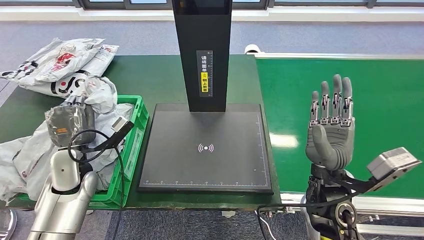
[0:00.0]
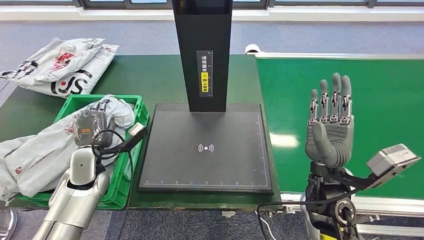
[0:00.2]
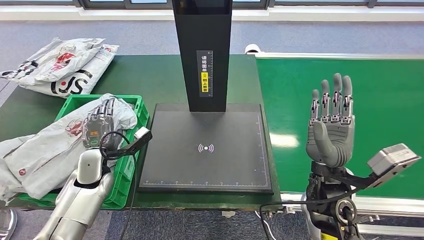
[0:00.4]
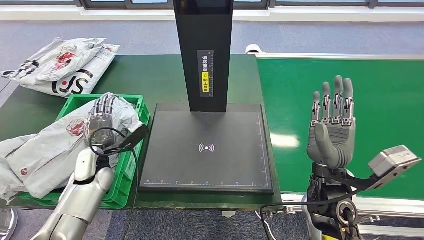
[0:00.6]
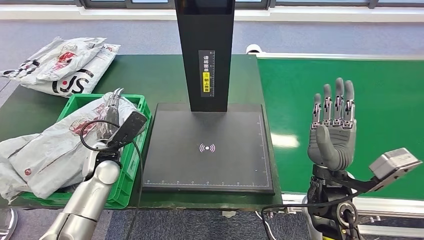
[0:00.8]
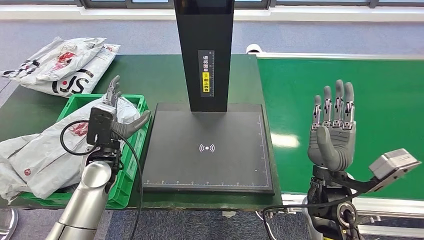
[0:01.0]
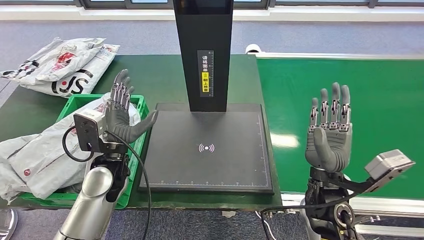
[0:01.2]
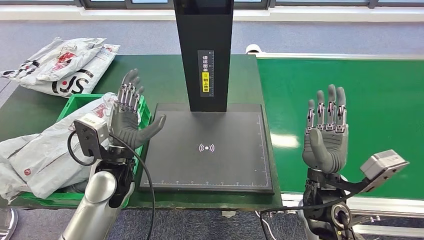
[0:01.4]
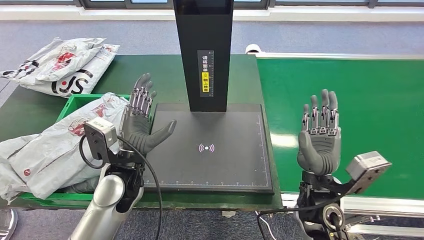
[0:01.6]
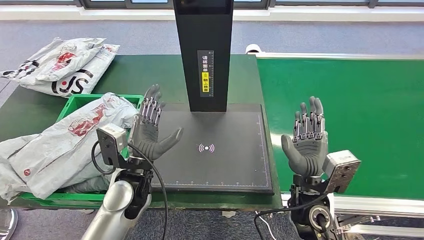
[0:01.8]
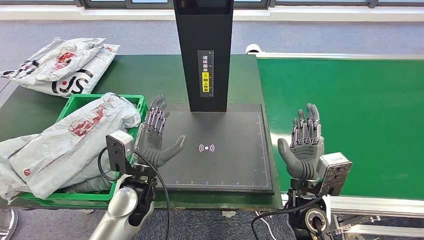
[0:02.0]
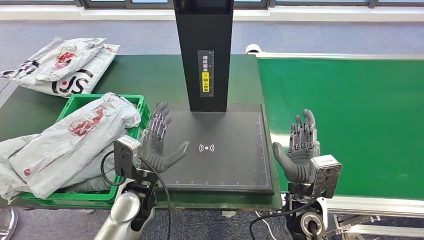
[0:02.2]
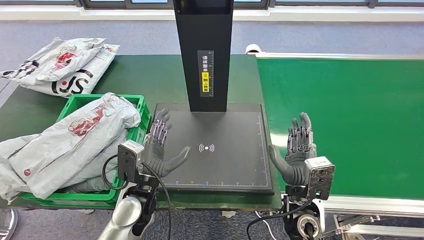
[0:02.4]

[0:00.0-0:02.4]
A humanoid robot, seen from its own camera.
Step, 0:00.0 to 0:02.4: Place the parcel into the delivery box.
0:00.0 to 0:01.2: The left hand moves to the right, about 10 cm.
0:01.2 to 0:02.4: The right hand moves downward, approximately 5 cm; the left hand heads to the right, downward and backward, covering some 10 cm.

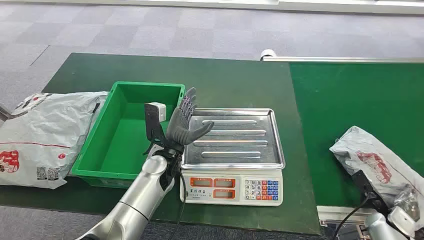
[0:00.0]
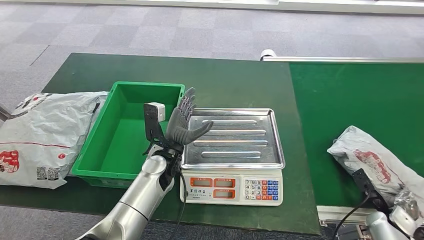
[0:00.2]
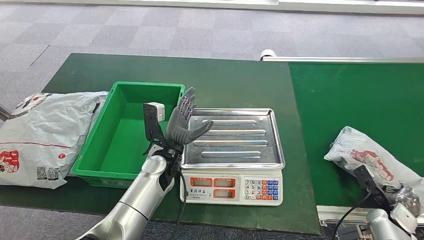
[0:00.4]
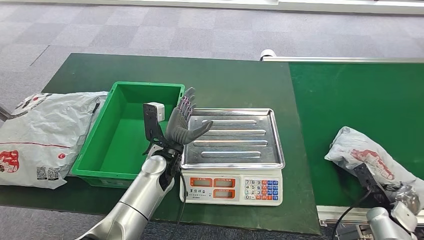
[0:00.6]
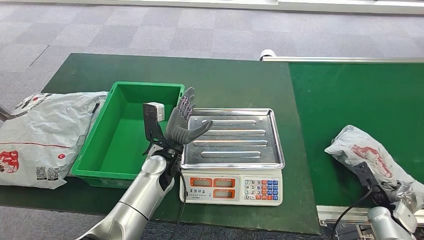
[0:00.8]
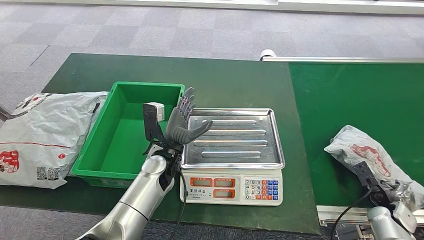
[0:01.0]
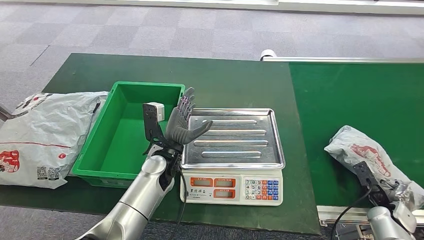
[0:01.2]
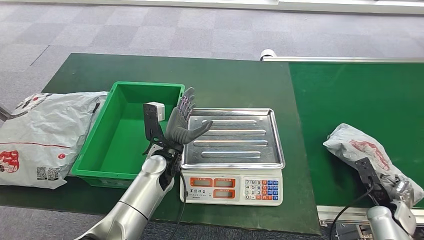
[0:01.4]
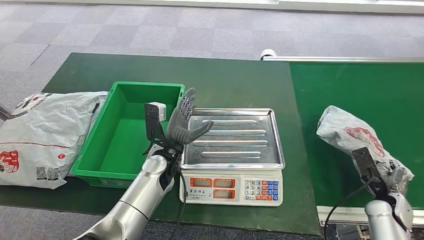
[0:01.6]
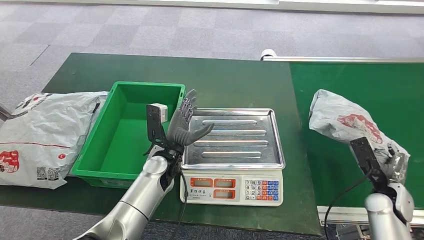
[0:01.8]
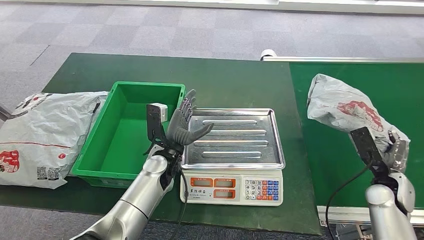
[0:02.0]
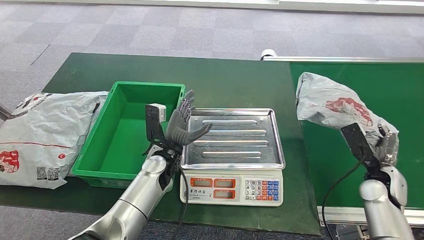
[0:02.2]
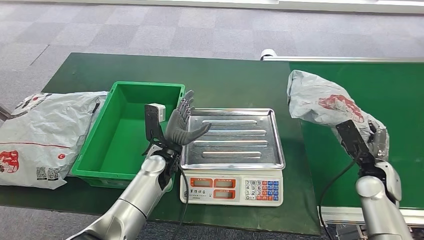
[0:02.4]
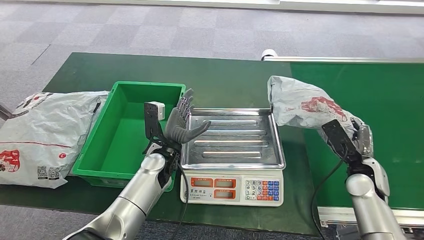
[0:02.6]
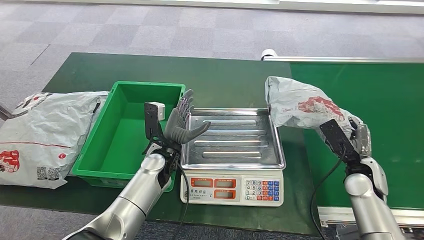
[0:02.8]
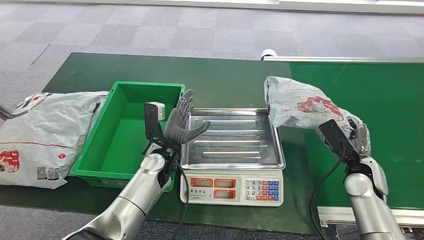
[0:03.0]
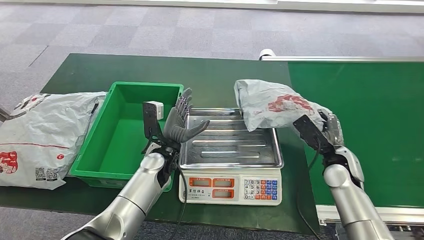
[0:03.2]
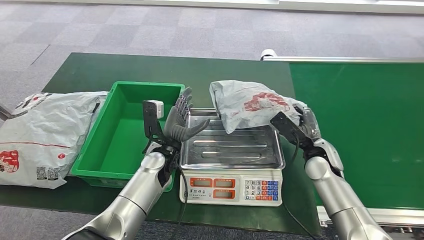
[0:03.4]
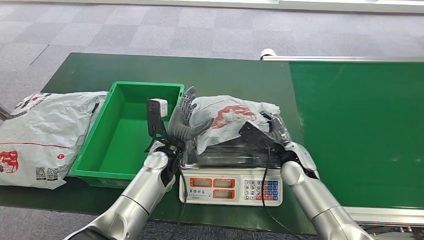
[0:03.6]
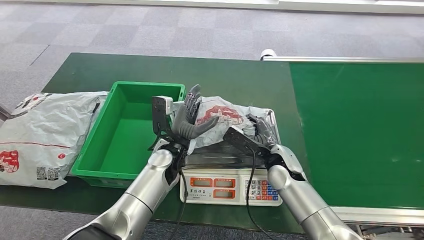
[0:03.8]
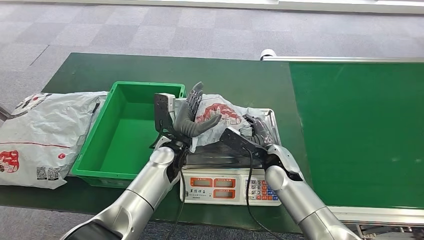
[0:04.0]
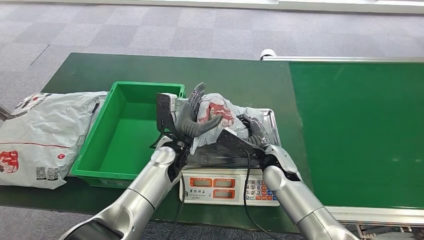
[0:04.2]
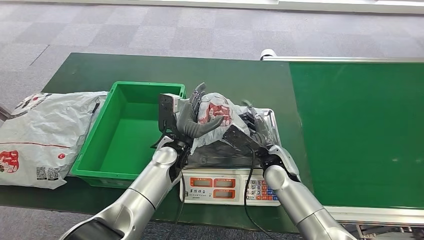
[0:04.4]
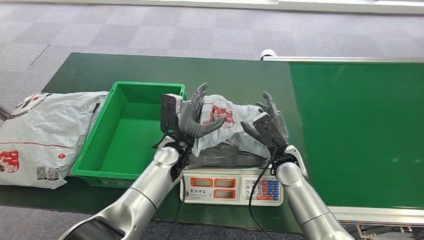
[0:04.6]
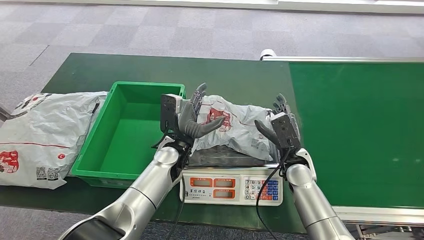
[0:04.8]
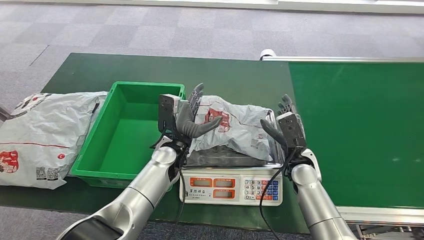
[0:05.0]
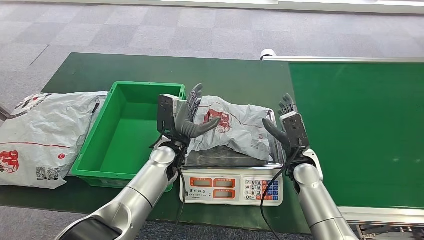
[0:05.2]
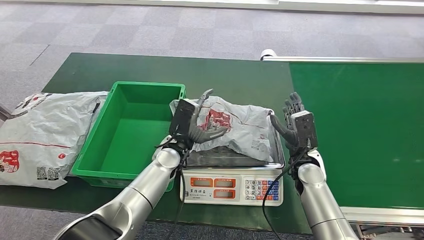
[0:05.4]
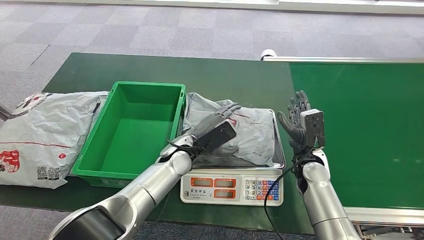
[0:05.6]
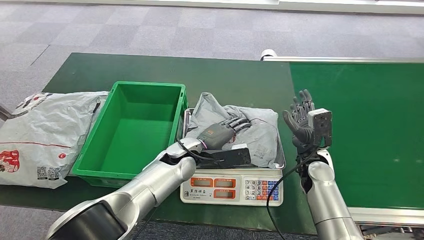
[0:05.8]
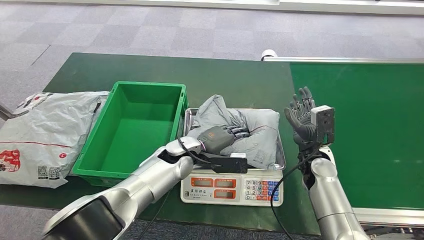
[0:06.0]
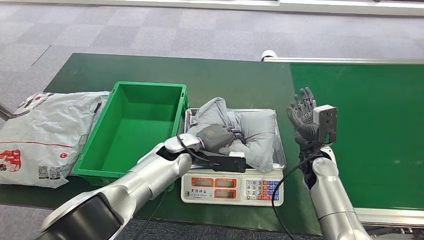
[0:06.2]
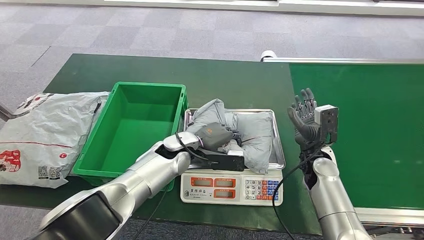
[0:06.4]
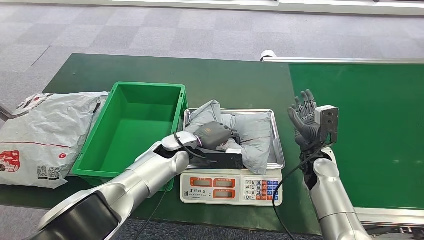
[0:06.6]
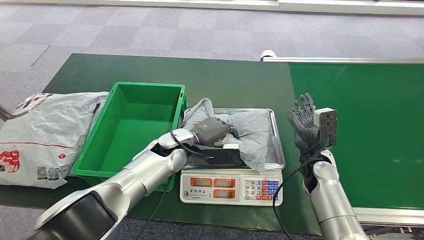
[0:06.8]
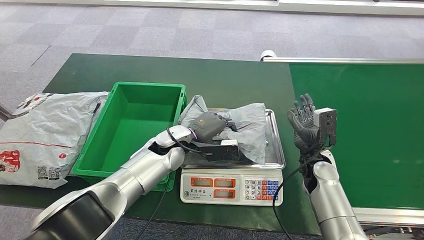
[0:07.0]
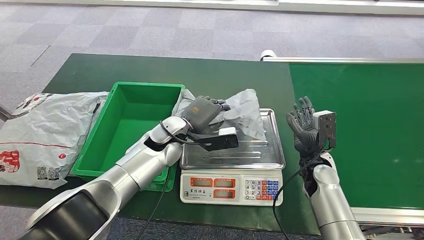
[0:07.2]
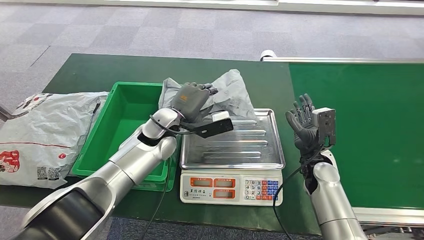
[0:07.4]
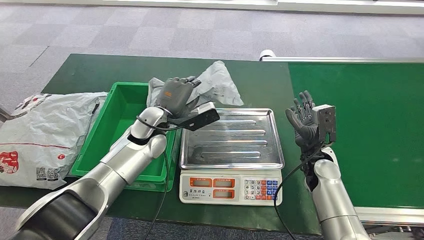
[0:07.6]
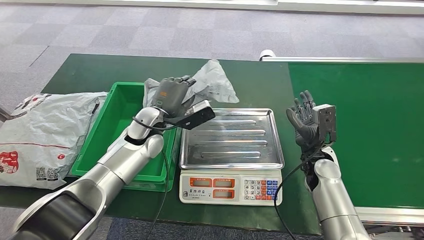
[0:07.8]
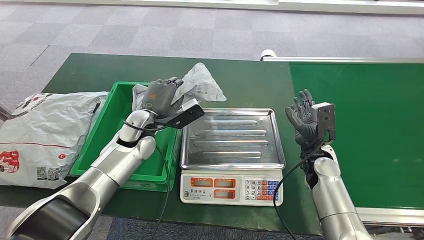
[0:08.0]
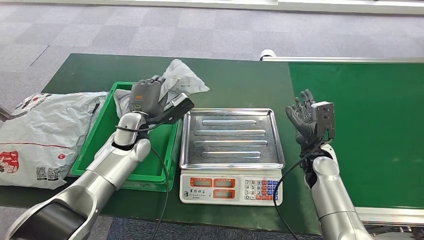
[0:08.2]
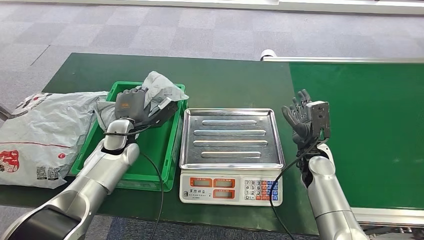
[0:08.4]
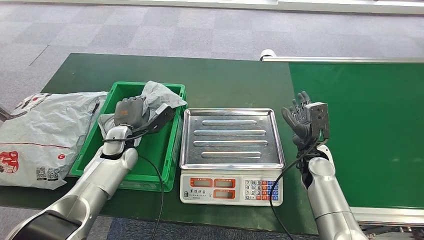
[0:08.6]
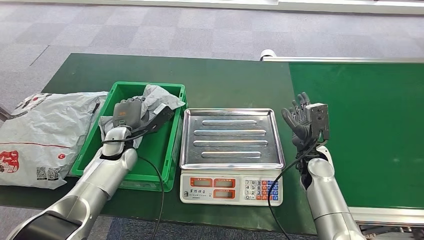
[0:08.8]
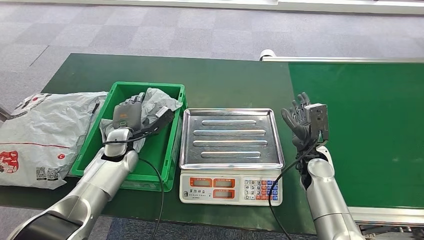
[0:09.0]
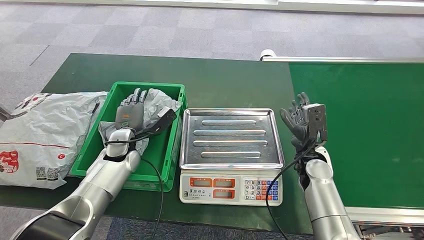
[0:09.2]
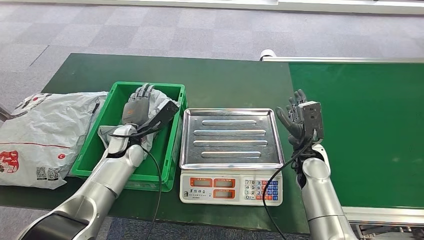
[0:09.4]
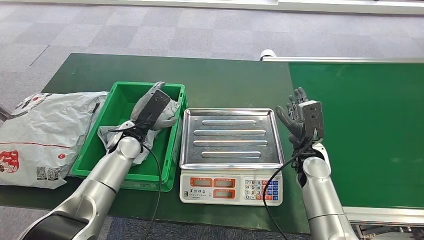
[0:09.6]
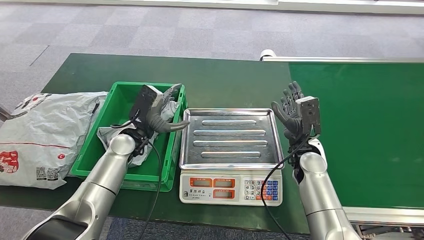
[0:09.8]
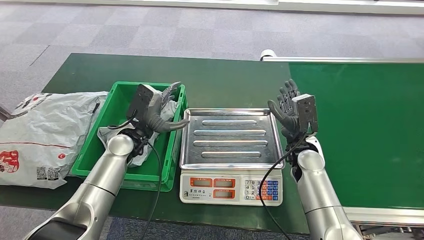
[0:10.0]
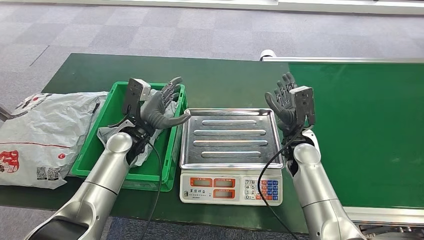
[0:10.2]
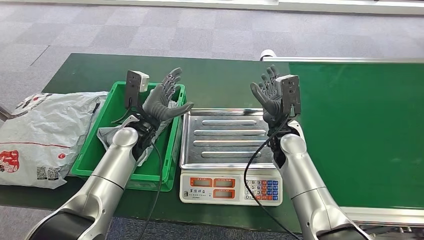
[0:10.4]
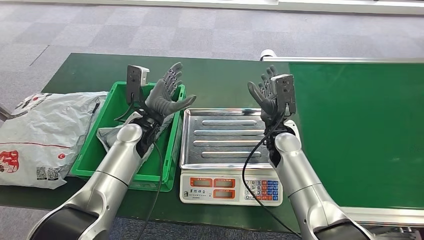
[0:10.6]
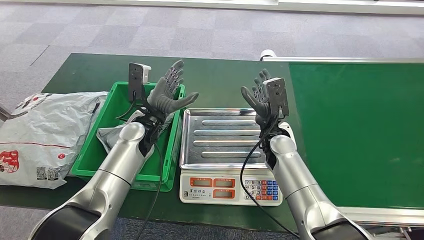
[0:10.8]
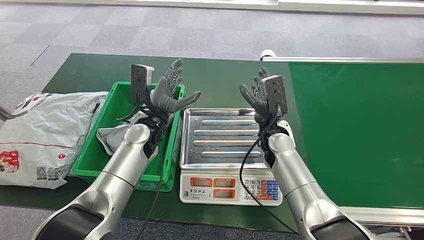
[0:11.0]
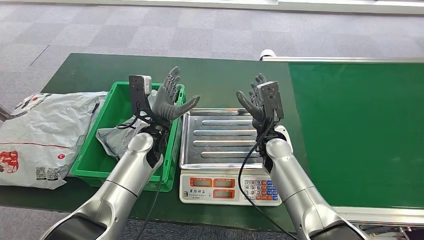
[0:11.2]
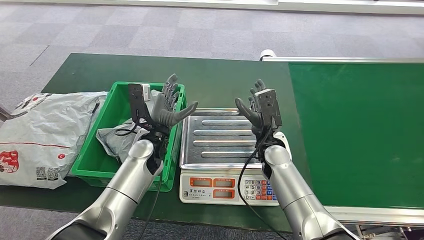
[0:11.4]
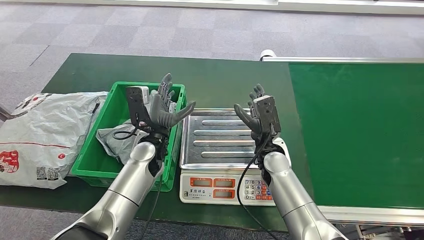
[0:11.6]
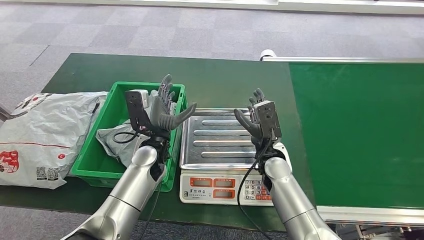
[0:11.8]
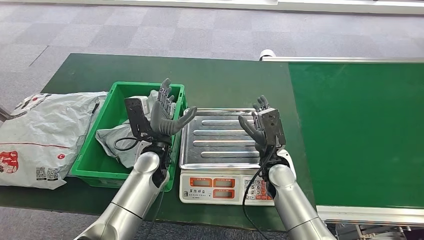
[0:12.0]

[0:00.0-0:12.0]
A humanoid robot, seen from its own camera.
Step, 0:00.0 to 0:02.2: Take the parcel off the conveyor belt.
Step, 0:02.4 to 0:05.6: Place the parcel onto the inbound machine.
Step, 0:05.8 to 0:08.4: Pick up the parcel from the inbound machine.
Step, 0:08.6 to 0:10.4: Put the parcel inside the courier box.
0:01.6 to 0:03.0: The right hand shifts roughly 15 cm to the left, upward and forward.
0:07.6 to 0:09.0: The left hand travels to the left and downward by some 10 cm.
0:09.0 to 0:10.4: The left hand heads to the right and upward, covering about 10 cm, while the right hand shifts some 10 cm to the left and upward.
0:10.4 to 0:12.0: The right hand travels backward and downward by roughly 10 cm. The left hand is displaced to the right and backward by some 10 cm.

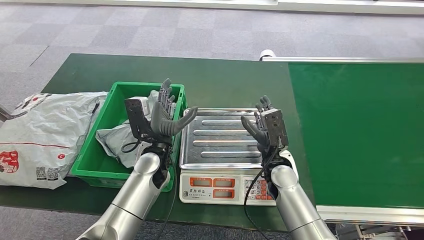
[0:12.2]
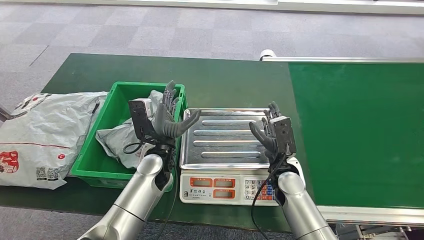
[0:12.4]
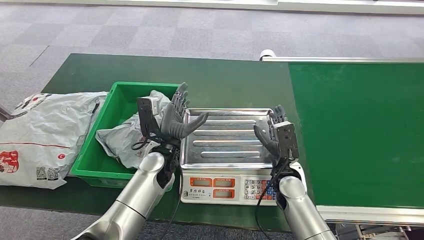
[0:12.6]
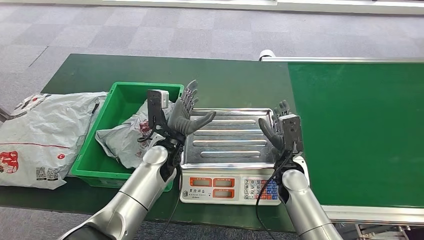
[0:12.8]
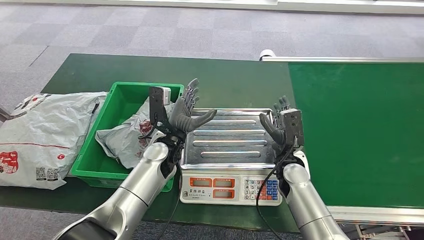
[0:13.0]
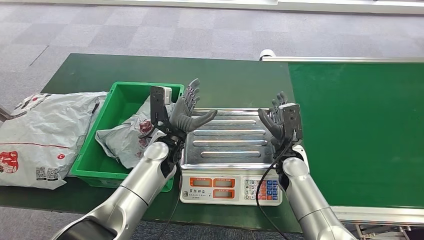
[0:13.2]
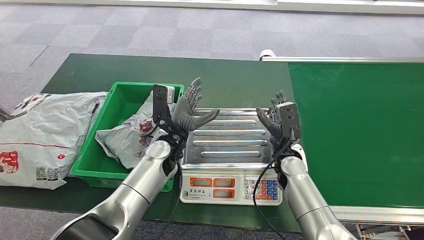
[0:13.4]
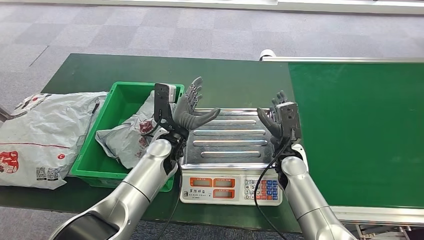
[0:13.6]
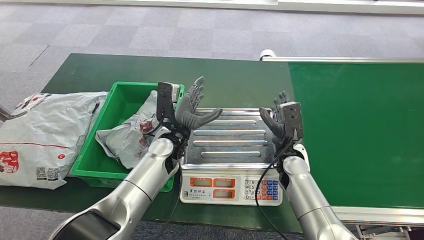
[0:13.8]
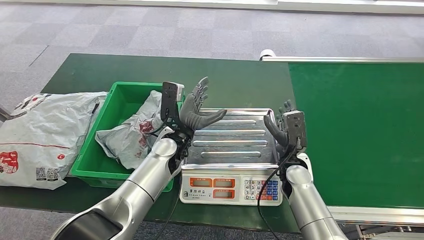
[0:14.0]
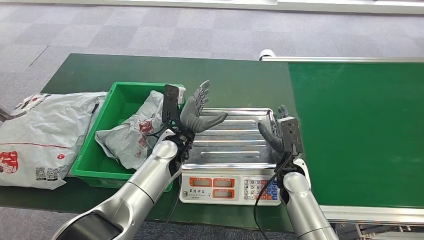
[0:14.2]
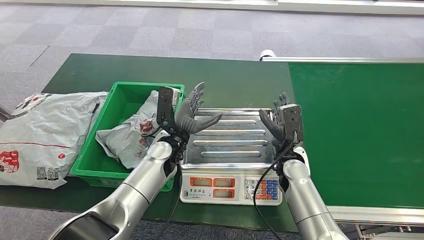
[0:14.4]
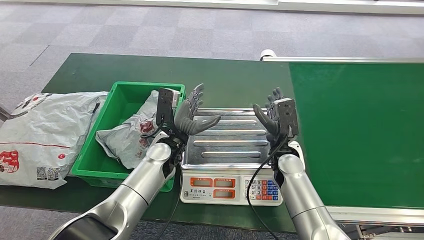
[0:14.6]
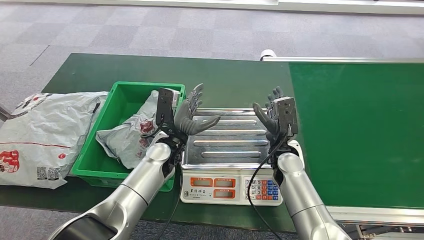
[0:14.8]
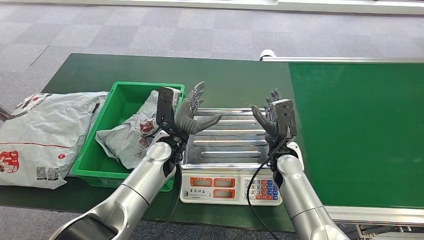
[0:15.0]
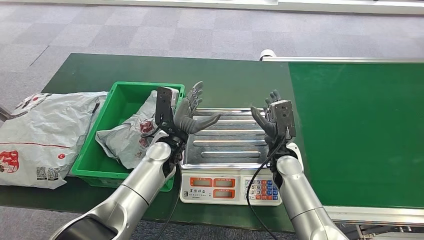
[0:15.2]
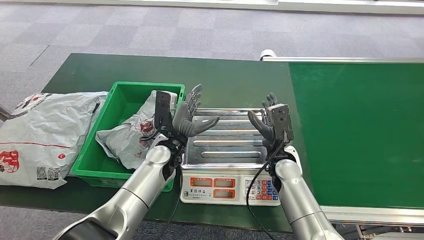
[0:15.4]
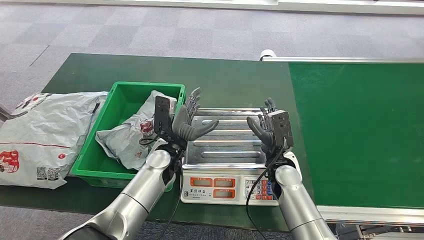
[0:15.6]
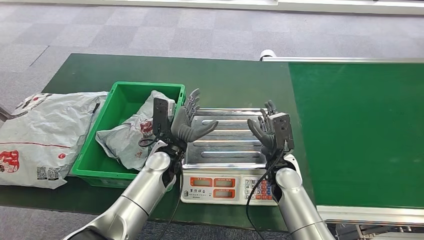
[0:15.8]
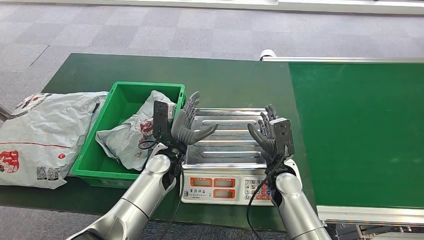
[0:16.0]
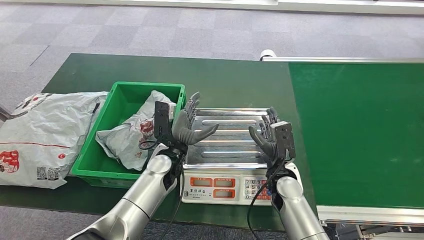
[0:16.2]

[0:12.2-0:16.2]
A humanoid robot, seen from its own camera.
0:12.2 to 0:14.8: The hands make only small movements.
0:14.8 to 0:16.2: The right hand goes approximately 5 cm backward.
